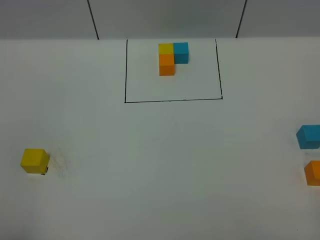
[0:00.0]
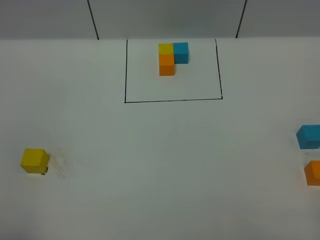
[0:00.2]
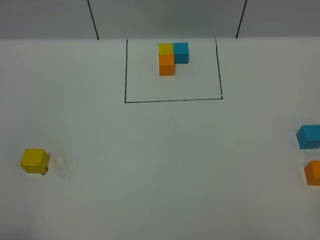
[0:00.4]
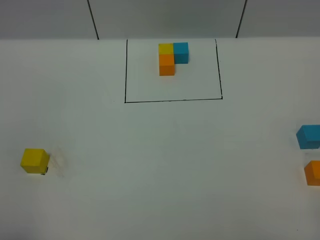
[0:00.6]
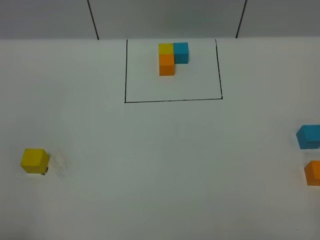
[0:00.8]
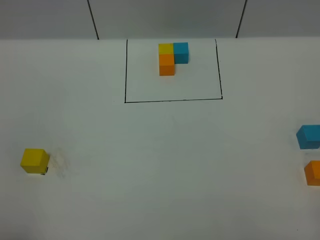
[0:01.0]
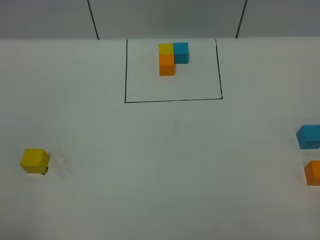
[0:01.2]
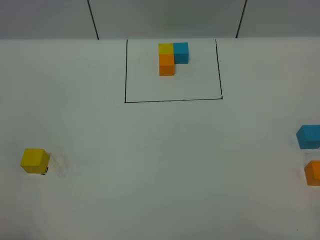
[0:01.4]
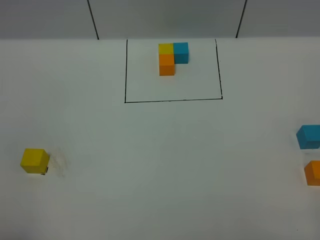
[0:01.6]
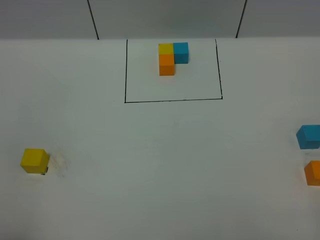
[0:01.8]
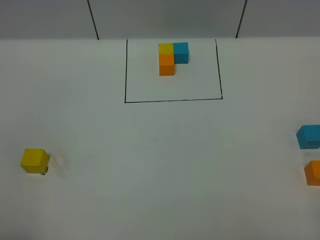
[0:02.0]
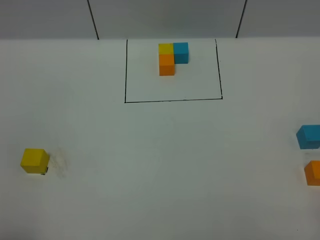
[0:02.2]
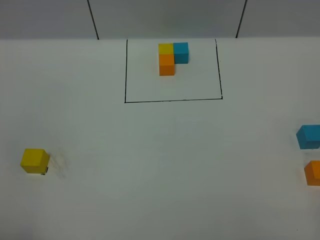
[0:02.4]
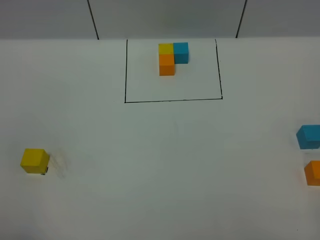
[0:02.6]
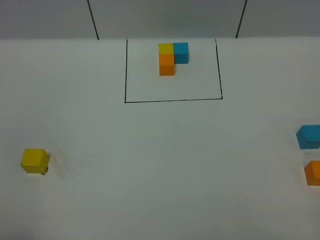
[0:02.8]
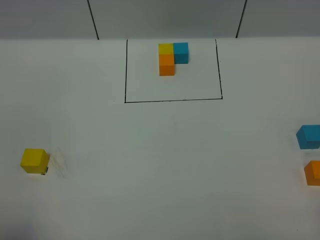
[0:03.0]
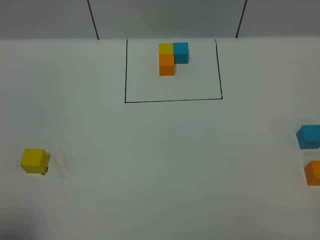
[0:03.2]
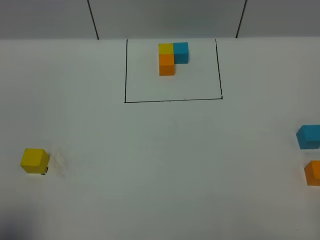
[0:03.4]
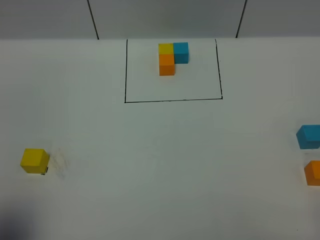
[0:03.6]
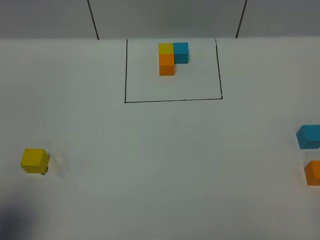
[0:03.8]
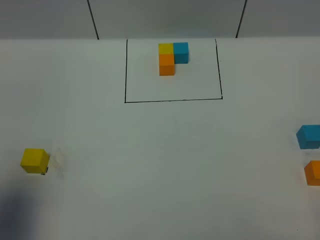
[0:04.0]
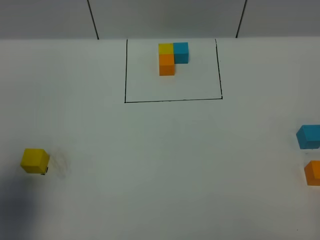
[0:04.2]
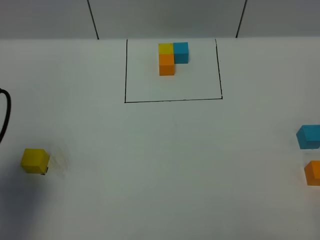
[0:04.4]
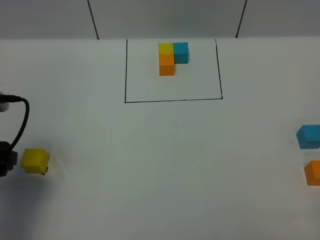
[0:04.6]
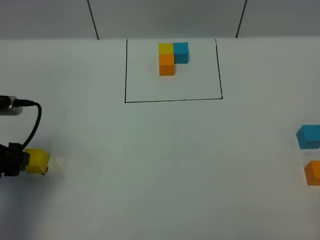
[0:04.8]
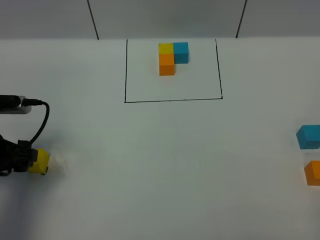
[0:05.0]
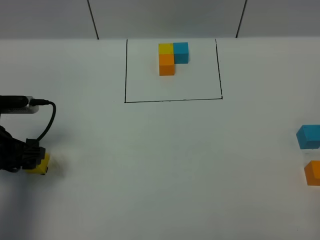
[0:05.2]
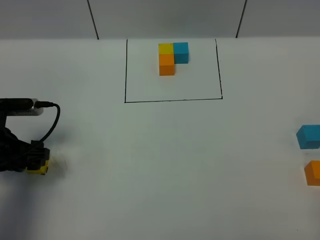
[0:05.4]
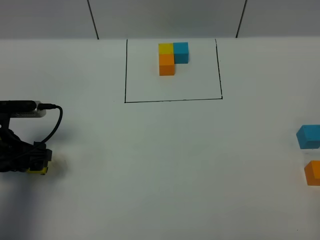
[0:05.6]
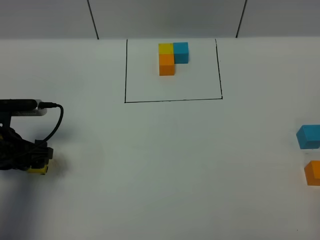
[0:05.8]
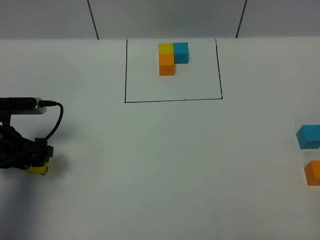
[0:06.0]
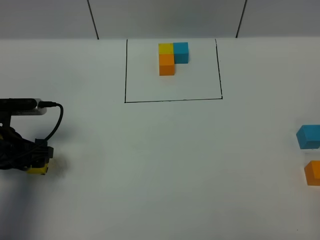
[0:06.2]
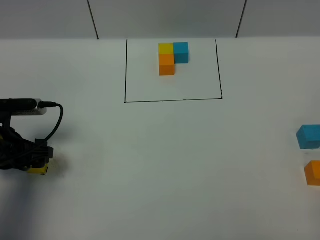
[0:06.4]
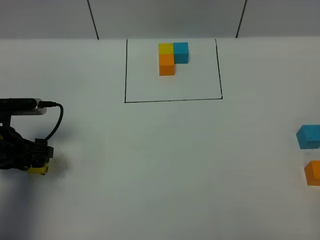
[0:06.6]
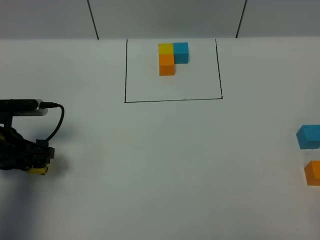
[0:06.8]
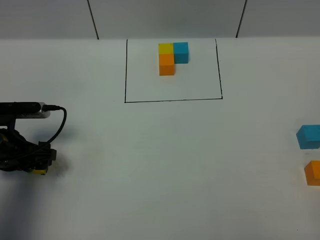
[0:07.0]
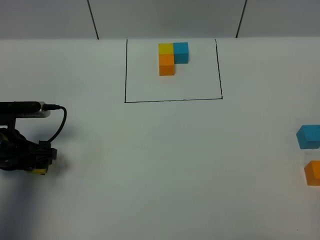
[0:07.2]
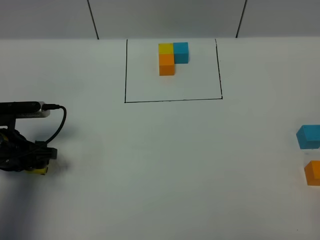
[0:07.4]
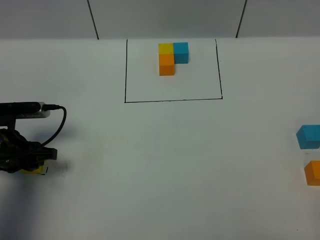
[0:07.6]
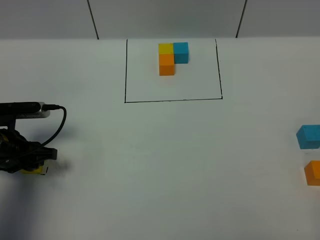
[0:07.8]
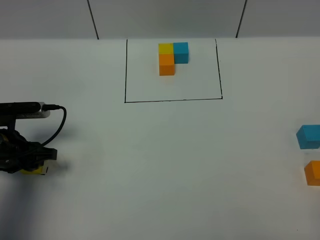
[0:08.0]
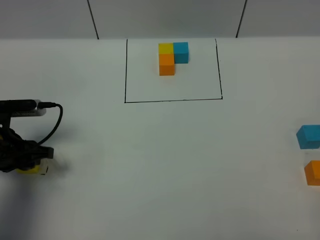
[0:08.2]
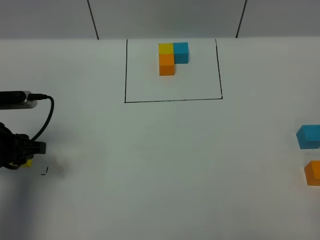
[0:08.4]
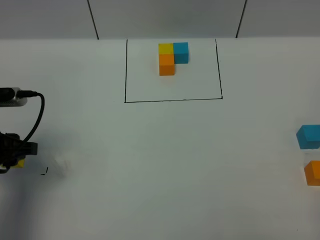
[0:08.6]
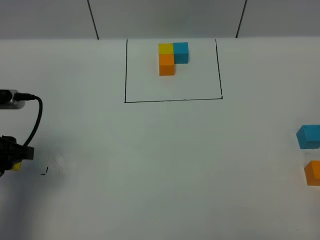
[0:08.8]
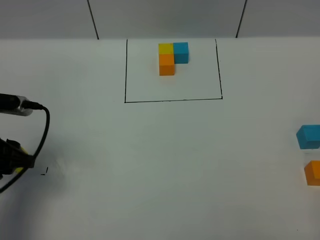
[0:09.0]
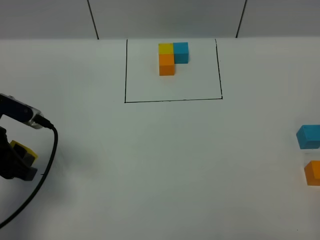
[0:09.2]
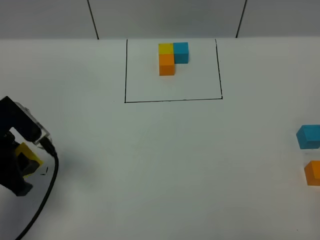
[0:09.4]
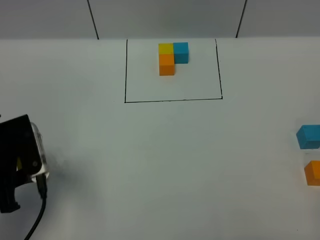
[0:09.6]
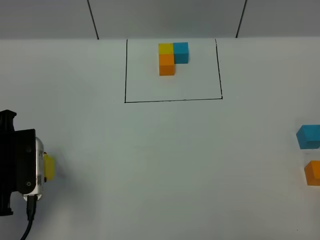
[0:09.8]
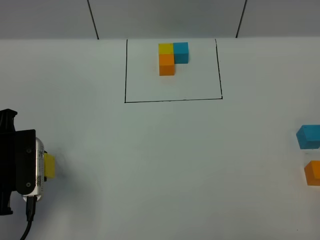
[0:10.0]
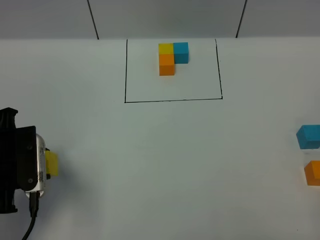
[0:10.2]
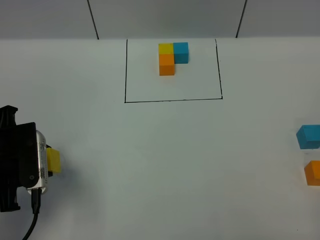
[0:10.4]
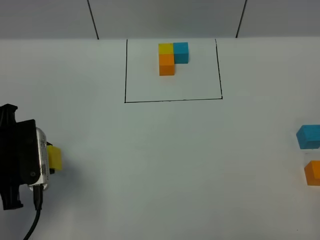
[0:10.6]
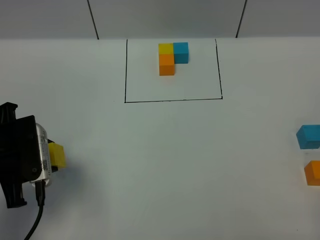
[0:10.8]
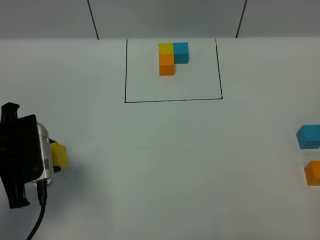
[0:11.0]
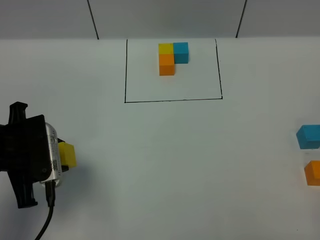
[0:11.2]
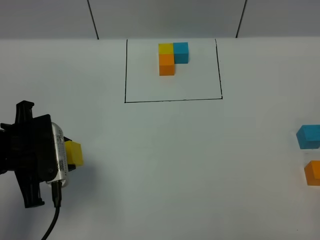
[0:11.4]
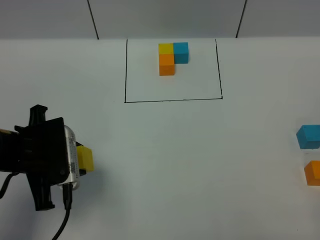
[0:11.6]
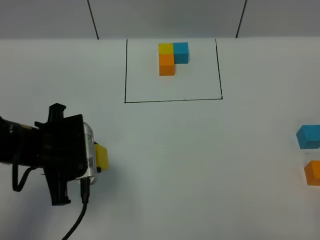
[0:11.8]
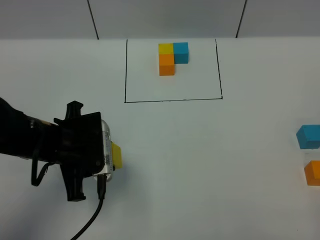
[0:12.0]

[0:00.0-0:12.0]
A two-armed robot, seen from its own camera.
Task of the whole recording: According to the building block template in front, assemble the scattered blocks together.
0:00.0 to 0:01.6: The two grippers keep their place.
0:03.0 to 0:04.4: The left gripper shifts some 15 cm forward.
0:04.4 to 0:06.0: The left gripper travels downward and forward by some 15 cm.
0:06.0 to 0:07.6: The left gripper closes its fingers.
0:07.6 to 0:09.0: The left gripper travels upward by about 10 cm.
0:10.4 to 0:12.0: The left gripper is displaced to the right by roughly 10 cm.

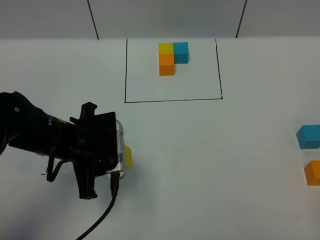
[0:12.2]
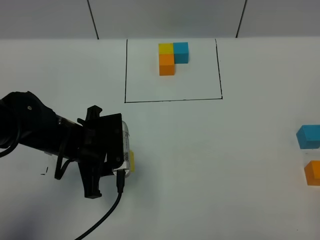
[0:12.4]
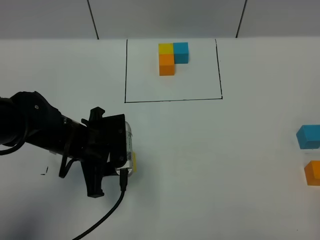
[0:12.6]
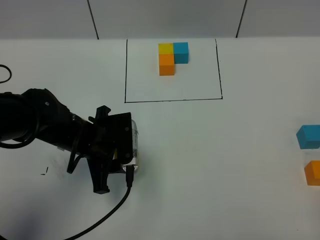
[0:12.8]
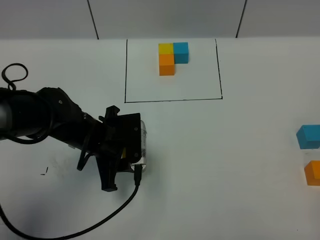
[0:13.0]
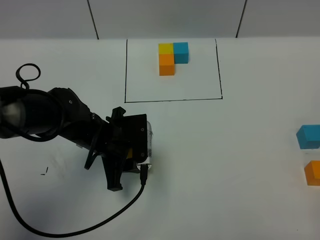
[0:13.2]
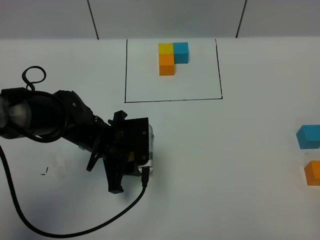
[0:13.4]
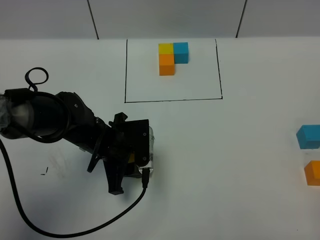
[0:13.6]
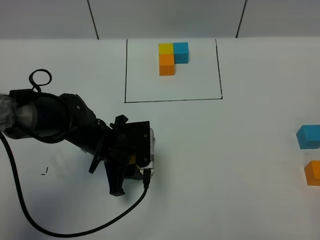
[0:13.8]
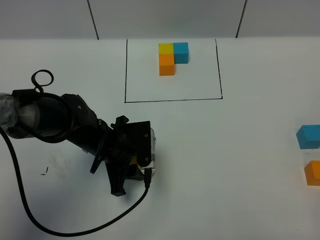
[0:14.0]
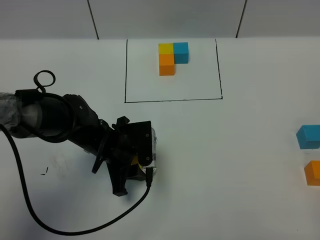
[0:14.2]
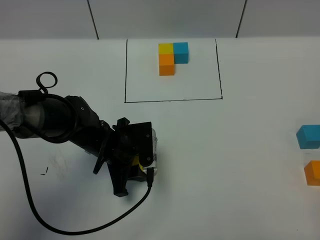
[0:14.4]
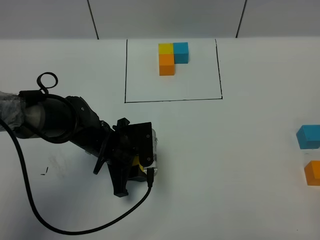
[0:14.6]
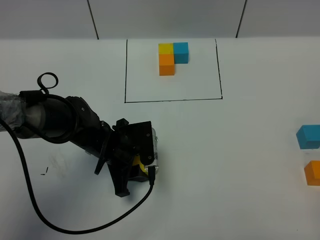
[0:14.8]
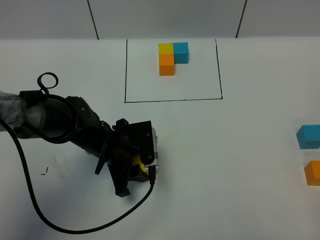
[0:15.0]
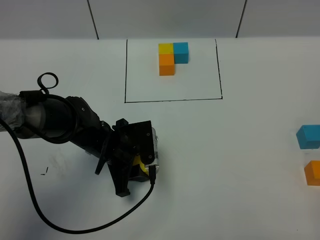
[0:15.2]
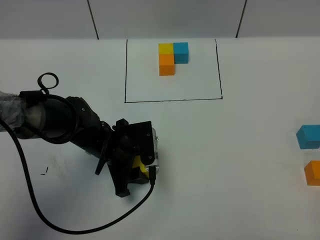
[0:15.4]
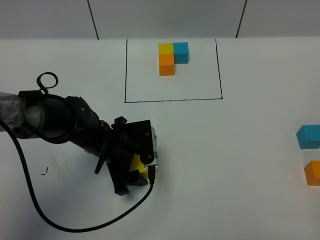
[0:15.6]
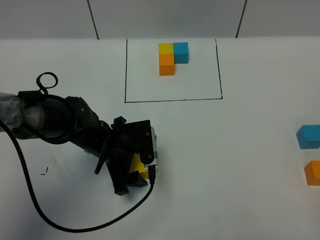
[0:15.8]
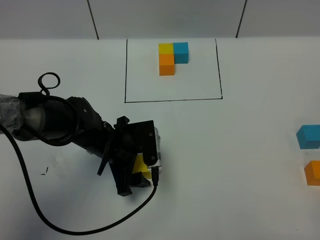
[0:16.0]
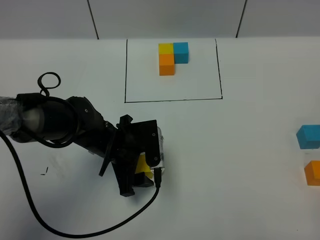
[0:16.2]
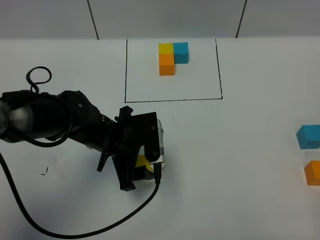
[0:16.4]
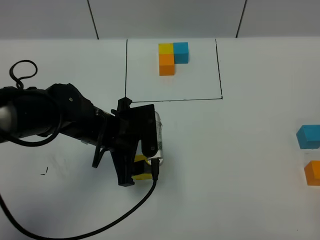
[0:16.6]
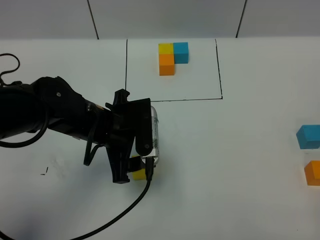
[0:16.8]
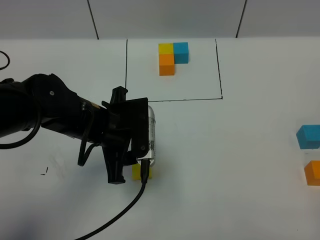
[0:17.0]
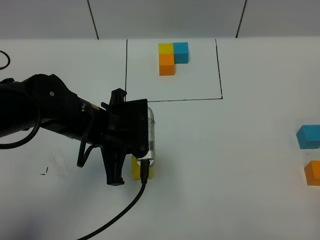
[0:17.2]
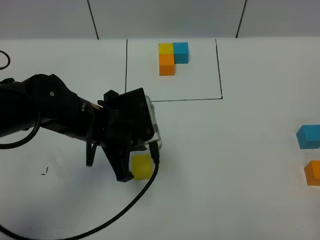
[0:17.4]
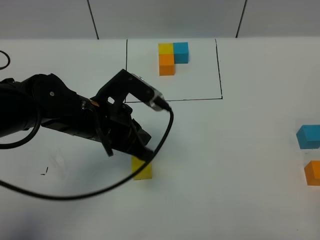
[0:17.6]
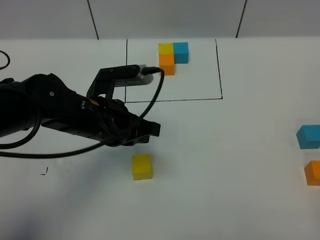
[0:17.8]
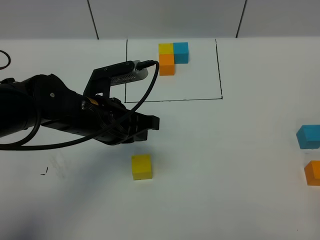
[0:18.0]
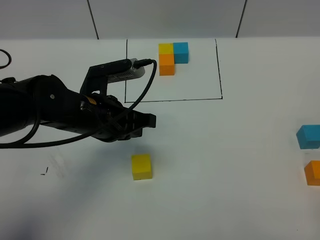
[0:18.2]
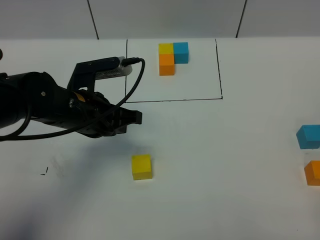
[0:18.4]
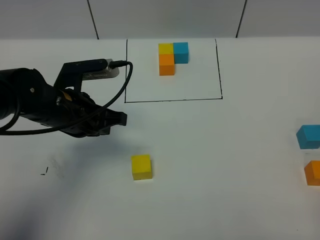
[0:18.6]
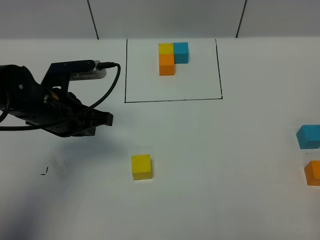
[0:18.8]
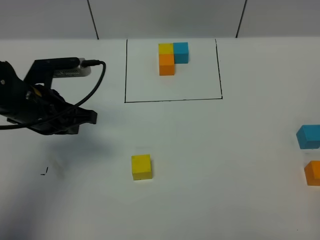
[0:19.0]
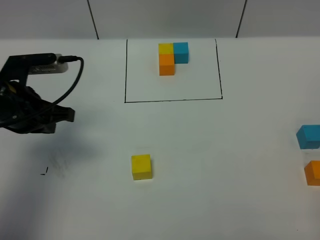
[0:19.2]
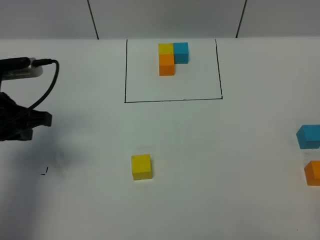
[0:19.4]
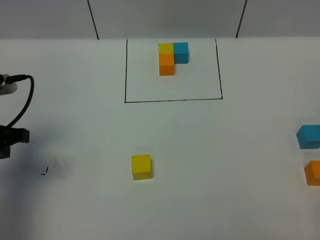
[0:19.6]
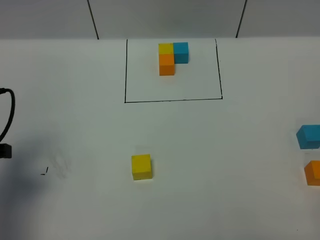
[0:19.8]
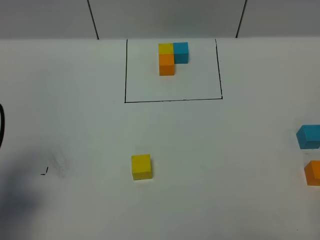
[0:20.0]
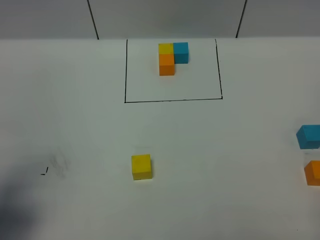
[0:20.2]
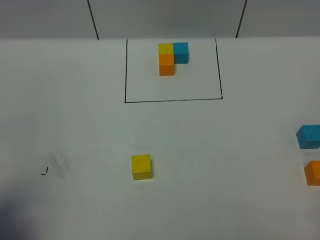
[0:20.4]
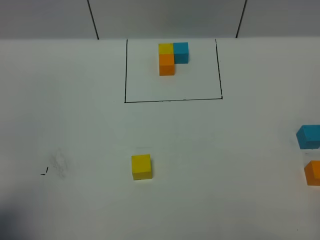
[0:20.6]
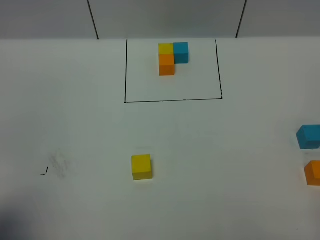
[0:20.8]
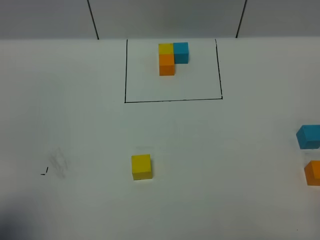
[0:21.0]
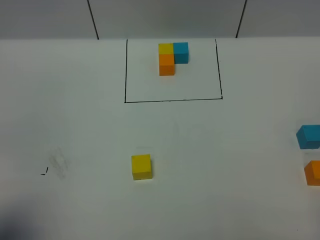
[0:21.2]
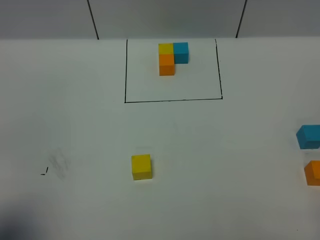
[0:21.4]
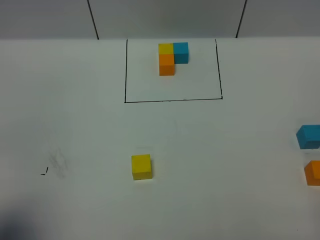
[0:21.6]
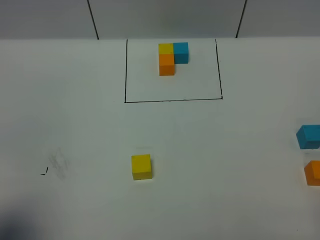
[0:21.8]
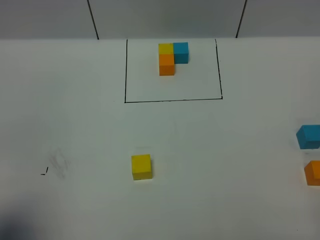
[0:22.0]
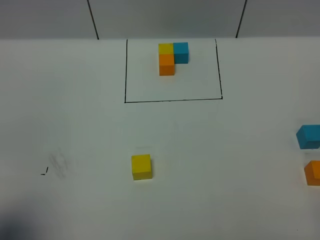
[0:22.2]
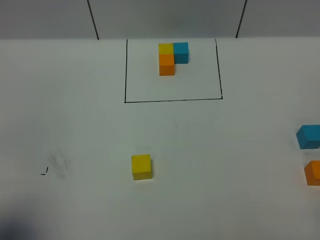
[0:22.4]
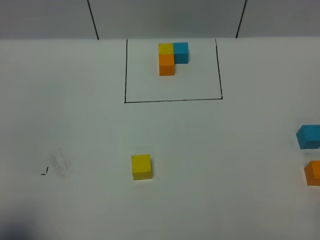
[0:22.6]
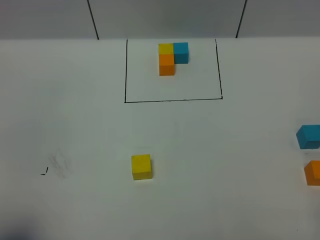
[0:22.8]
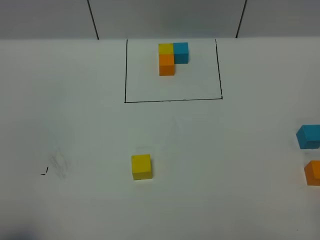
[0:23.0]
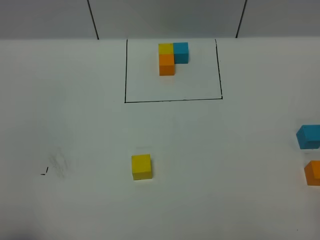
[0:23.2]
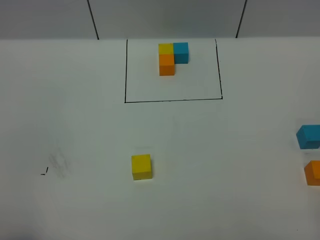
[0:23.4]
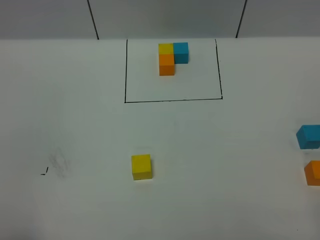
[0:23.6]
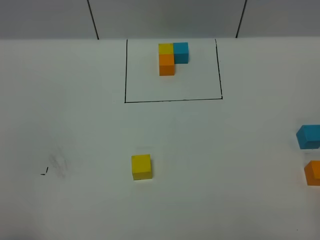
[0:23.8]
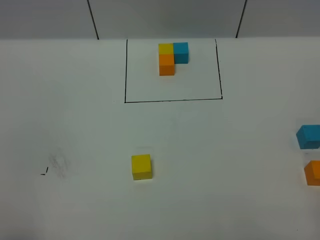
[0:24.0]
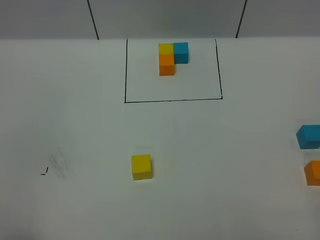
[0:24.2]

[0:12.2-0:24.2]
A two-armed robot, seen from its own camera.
Task of the whole recording: According to the building block template in front, assemble the scattered blocks together.
Step, 0:12.2 to 0:15.6: Put the yellow cube in the center of the table.
0:12.2 to 0:13.8: The left gripper heads downward, covering approximately 5 cm.
0:13.8 to 0:15.2: There are only small adjustments of the grippers.
0:15.2 to 0:16.6: The left gripper is displaced upward by some 5 cm, and opens up.
0:16.6 to 0:18.2: The left gripper closes.
0:18.2 to 0:19.8: The left gripper is displaced to the left by roughly 20 cm.
0:19.8 to 0:21.2: The left gripper heads backward, covering about 15 cm.
0:22.6 to 0:24.2: The left gripper travels backward by approximately 5 cm.
